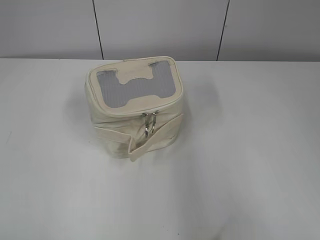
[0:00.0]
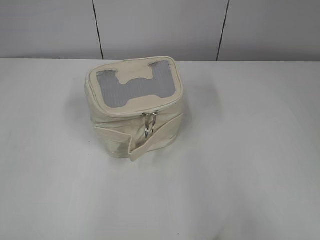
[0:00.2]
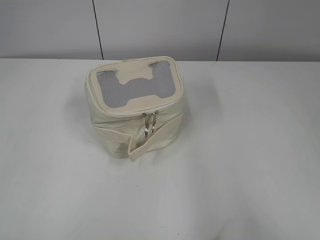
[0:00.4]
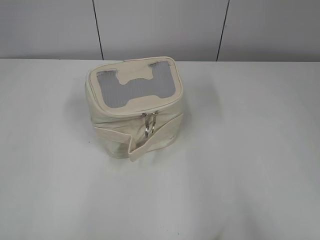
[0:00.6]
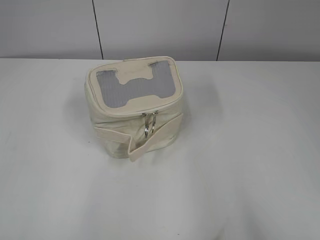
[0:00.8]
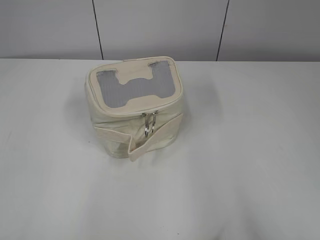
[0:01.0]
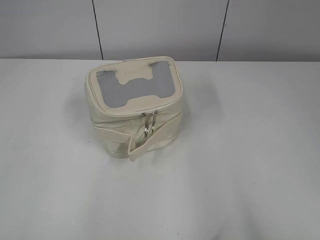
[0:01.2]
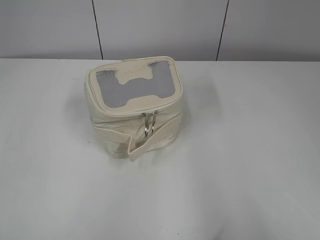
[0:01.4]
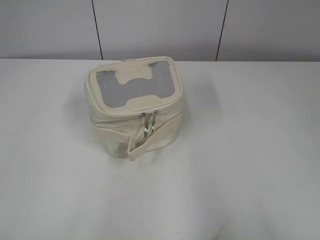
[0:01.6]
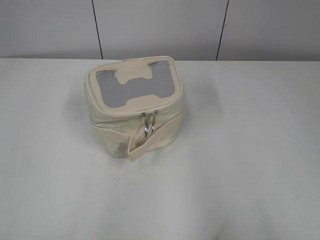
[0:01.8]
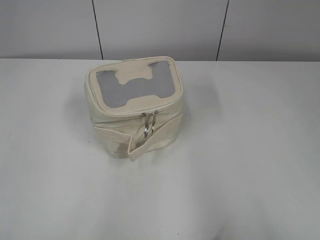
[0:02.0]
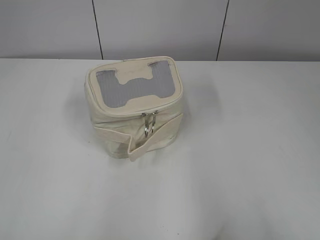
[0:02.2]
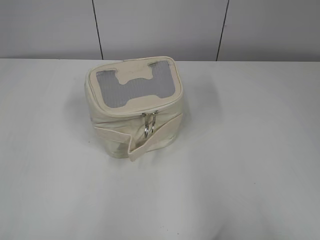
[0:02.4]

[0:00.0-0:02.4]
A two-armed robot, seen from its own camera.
0:00.0 to 0:01.2: The right gripper shifts about 5 cm backward. The left gripper heads downward, covering about 5 cm.
